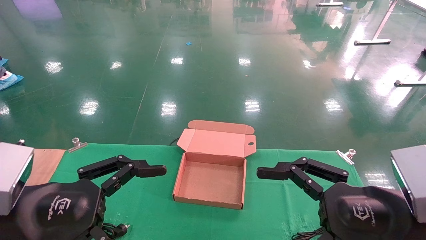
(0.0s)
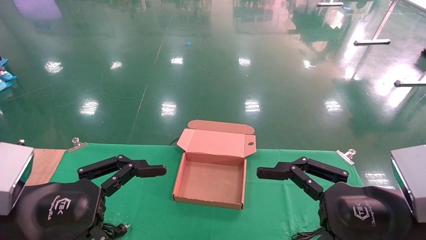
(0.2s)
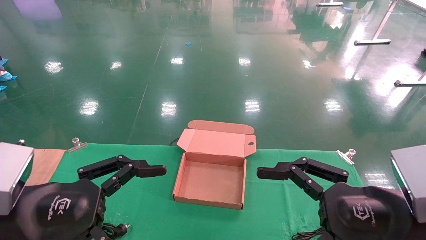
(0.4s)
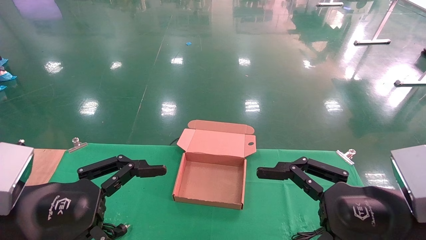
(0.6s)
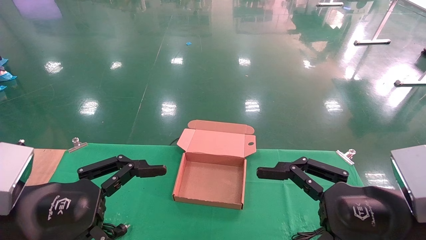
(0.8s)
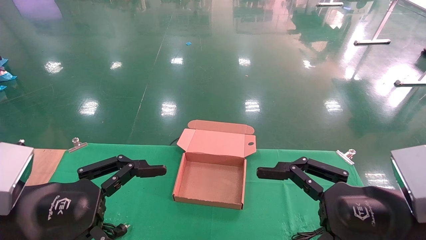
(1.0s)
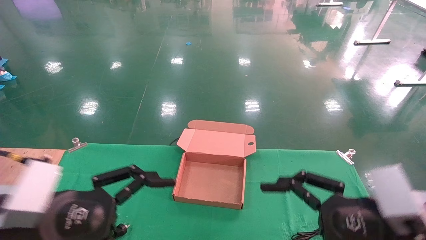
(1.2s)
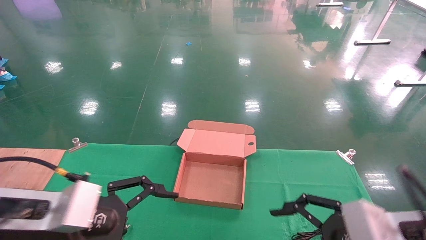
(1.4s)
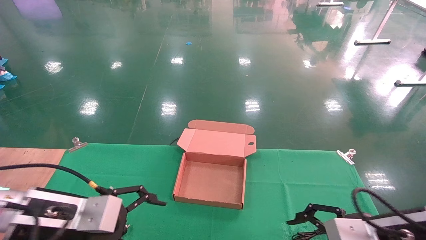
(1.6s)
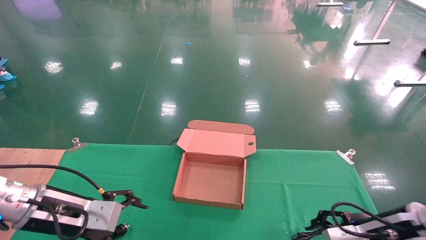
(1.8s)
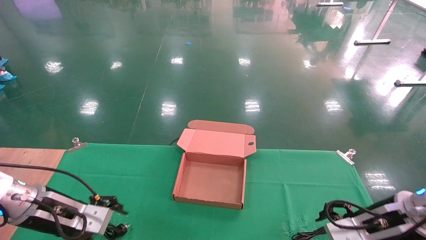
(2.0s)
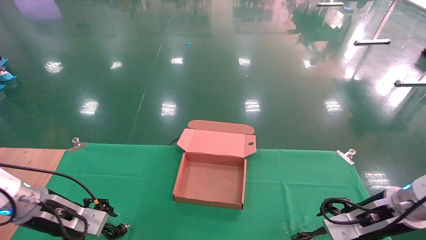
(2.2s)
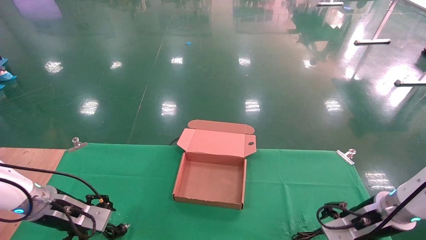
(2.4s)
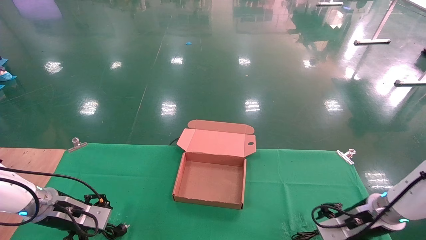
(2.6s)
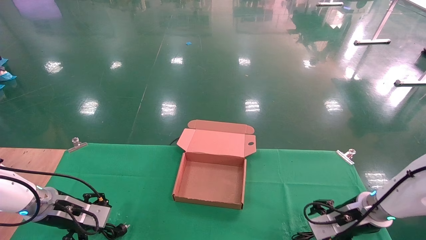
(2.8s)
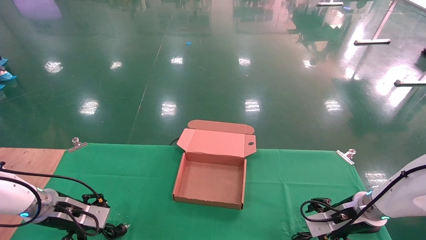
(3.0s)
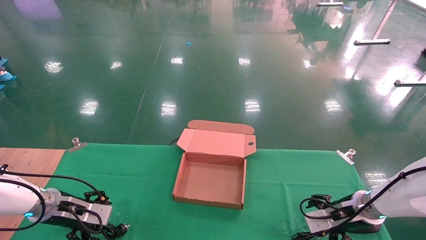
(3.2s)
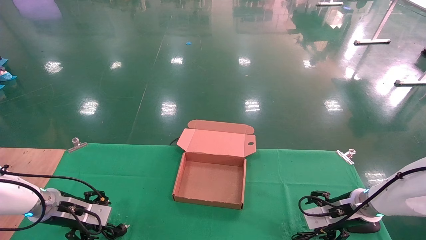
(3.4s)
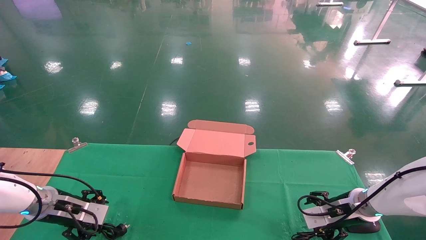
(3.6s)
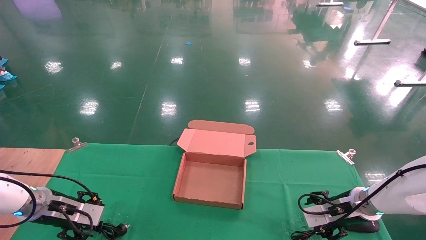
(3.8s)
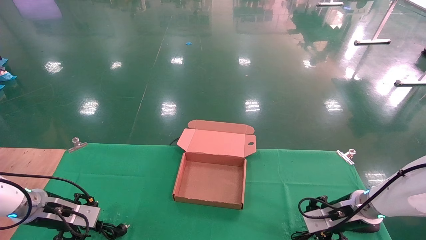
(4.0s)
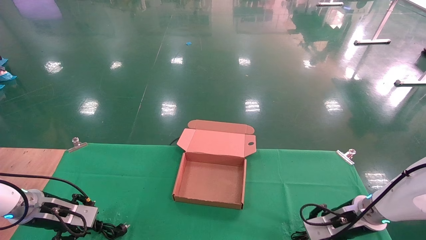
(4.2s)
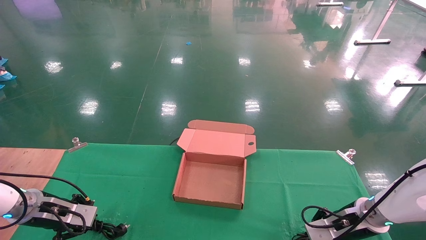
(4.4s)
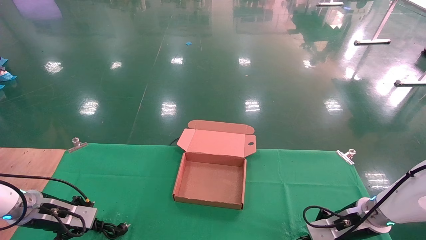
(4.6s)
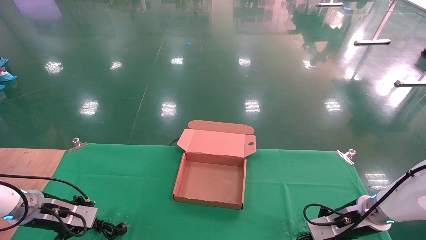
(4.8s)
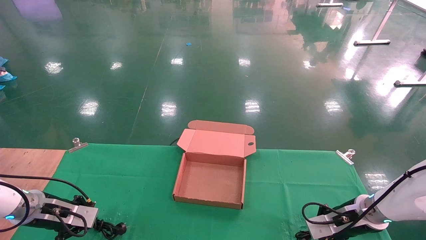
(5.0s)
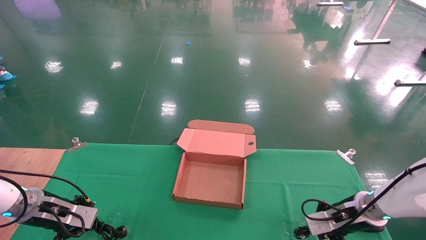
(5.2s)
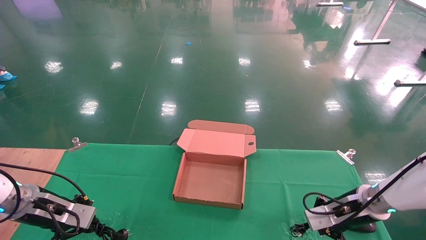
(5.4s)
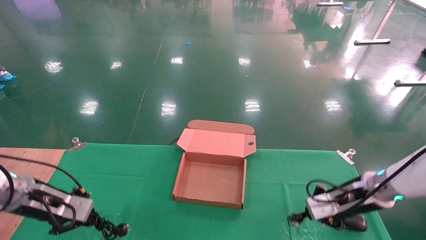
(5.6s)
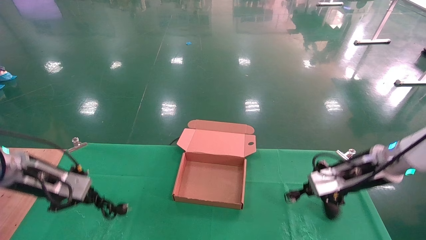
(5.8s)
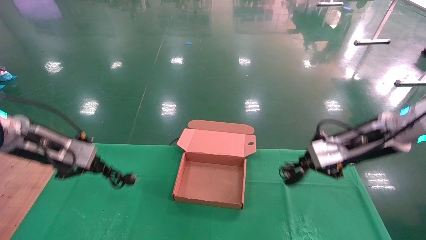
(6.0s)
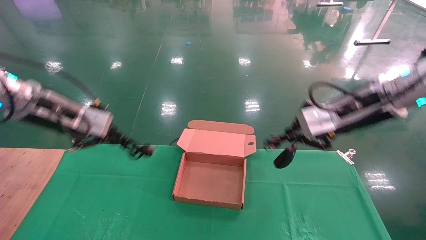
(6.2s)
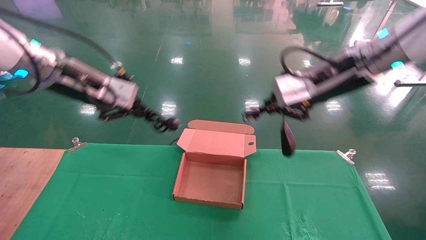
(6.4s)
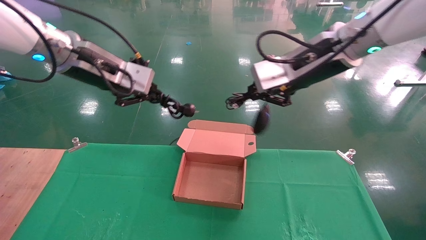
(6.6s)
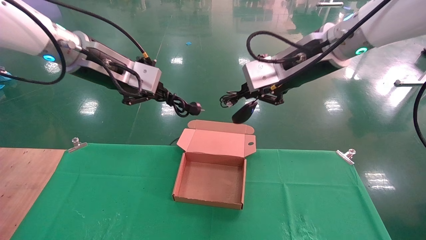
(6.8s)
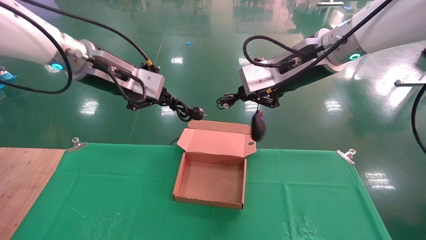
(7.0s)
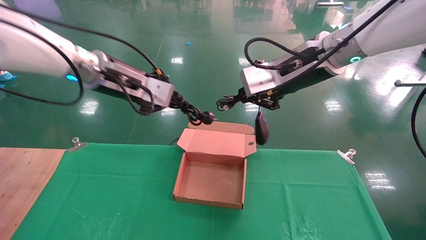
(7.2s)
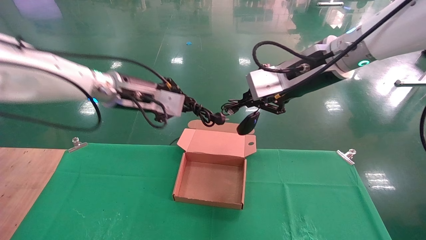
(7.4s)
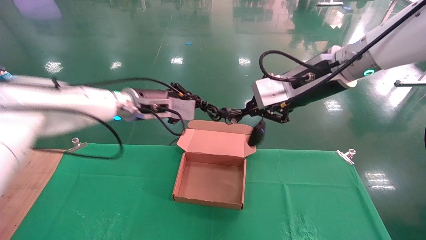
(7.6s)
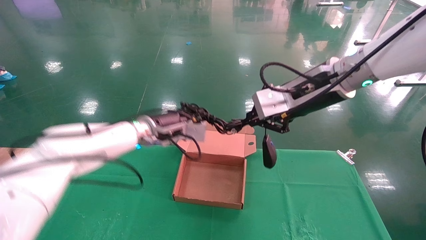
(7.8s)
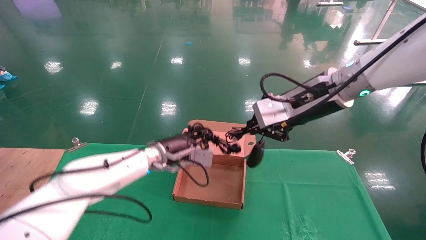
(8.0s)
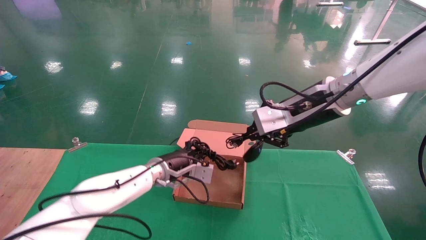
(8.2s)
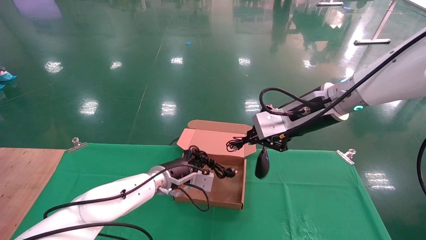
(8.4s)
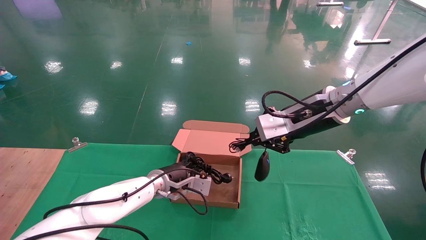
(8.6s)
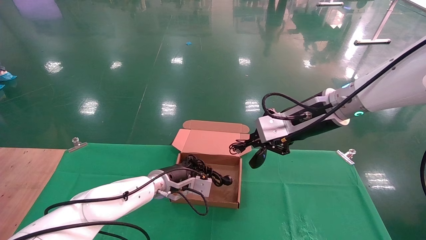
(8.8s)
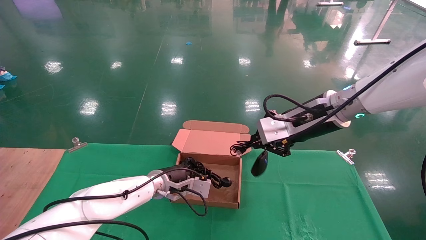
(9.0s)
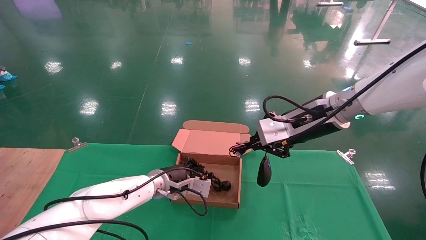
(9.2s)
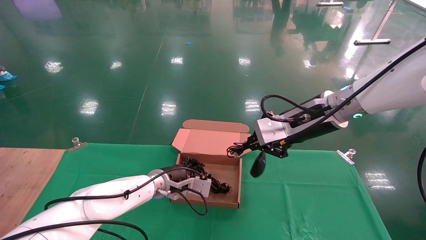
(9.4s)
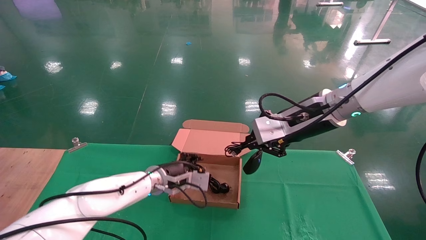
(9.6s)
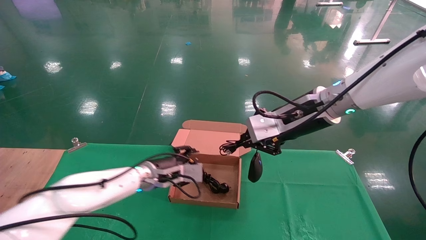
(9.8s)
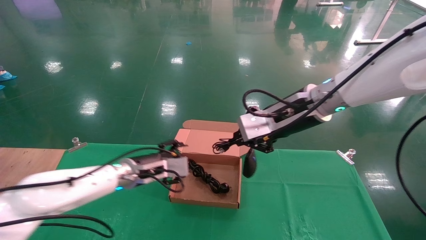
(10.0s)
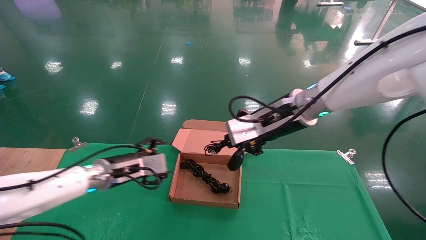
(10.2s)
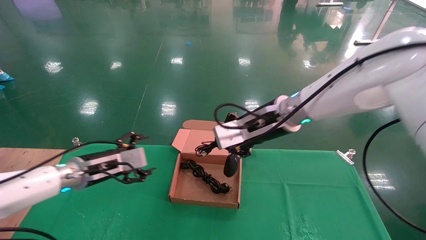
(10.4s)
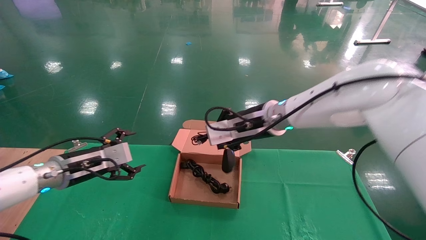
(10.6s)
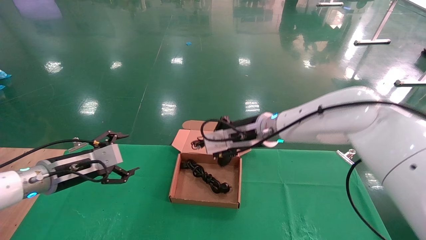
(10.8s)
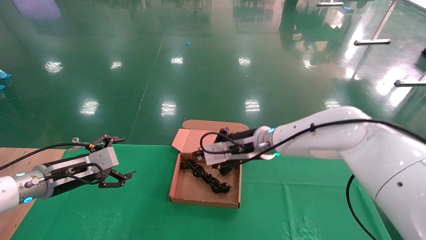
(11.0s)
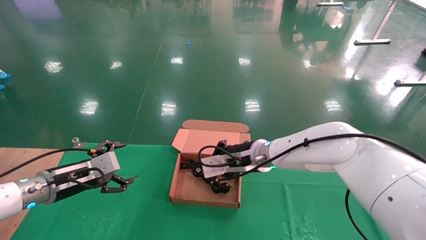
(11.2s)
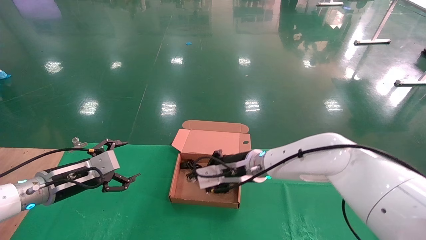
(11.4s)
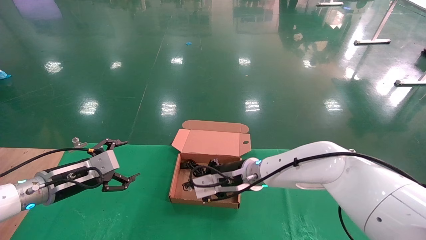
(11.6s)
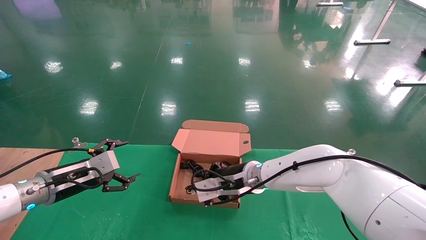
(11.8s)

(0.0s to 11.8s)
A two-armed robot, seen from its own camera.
Step, 1.6s - 6.2s: Grab and lift both the mouse and power cord from the accessory packaging area at the same time.
0.0s - 1.4s: The left gripper ends up about 5 cm from where it was. Meanwhile the right gripper ends up about 5 cm from where it was.
1.4s - 3.0s: The left gripper goes some 25 cm forward, to the left and downward, while the right gripper heads forward and downward, covering approximately 25 cm.
3.0s - 4.4s: The right gripper closes up. The left gripper closes up.
4.4s - 6.0s: Both grippers travel together upward, some 20 cm. The right gripper closes up. Meanwhile the left gripper closes up.
6.0s - 7.4s: The left gripper travels to the right by approximately 15 cm, while the right gripper is displaced upward and to the left by about 15 cm.
7.4s - 8.8s: The right gripper travels downward by some 10 cm. Meanwhile the left gripper travels downward by approximately 25 cm.
8.8s - 10.4s: The left gripper heads to the left and backward, covering roughly 15 cm, and opens; the right gripper shifts approximately 10 cm to the left.
10.4s - 11.8s: The left gripper moves to the left, roughly 5 cm; the right gripper travels downward by roughly 15 cm.

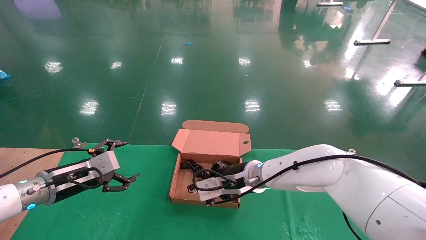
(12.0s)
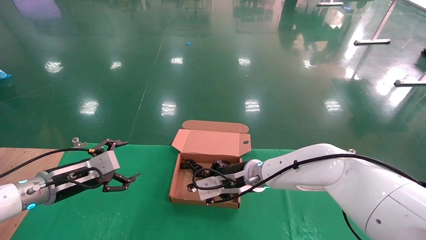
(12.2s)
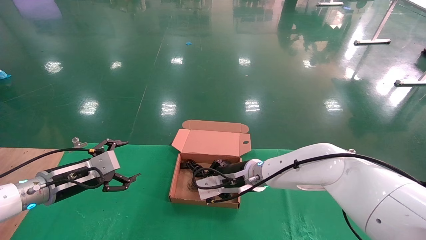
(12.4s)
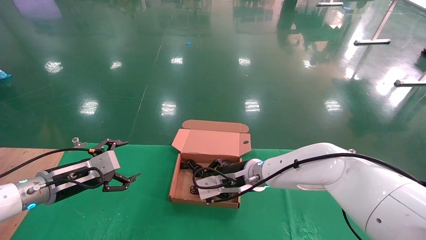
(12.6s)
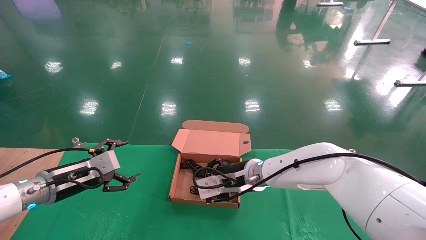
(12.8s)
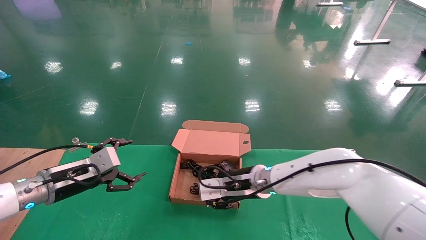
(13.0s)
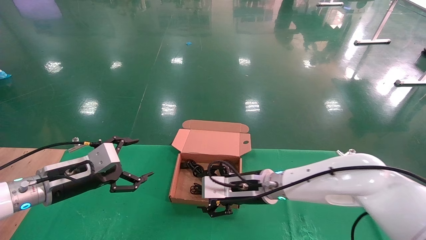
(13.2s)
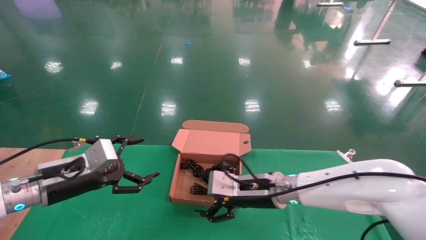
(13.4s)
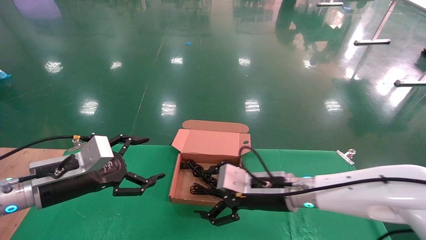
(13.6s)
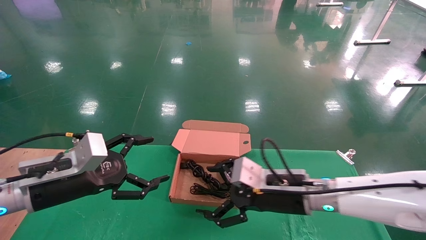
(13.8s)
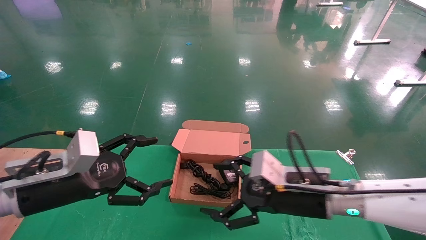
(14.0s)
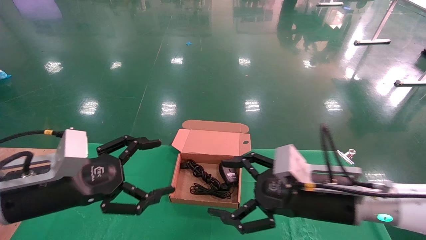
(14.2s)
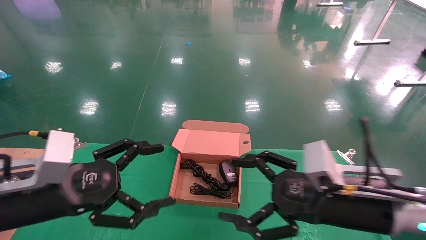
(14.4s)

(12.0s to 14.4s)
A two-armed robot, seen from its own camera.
12.0s - 13.2s: The right gripper opens up.
13.2s - 14.4s: The right gripper travels backward, to the right and upward by about 20 cm, and opens up; the left gripper shifts some 15 cm backward and upward.

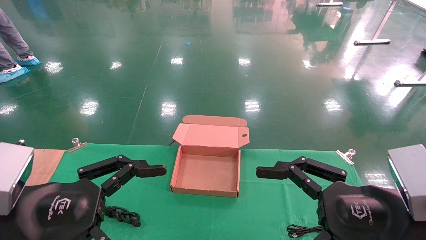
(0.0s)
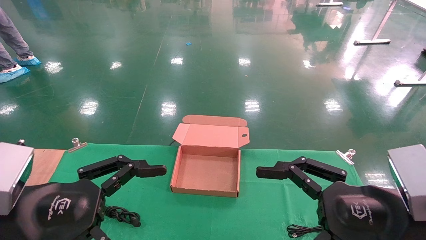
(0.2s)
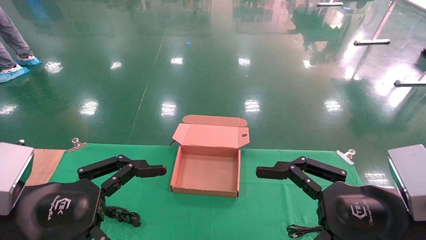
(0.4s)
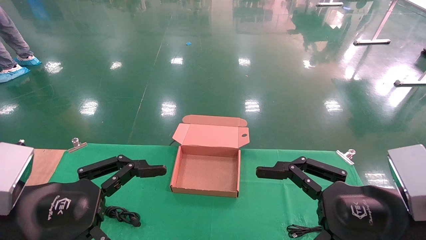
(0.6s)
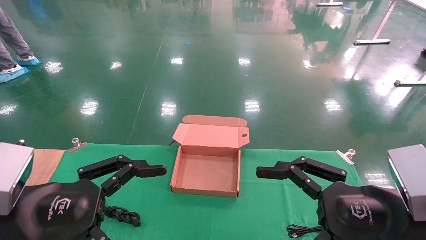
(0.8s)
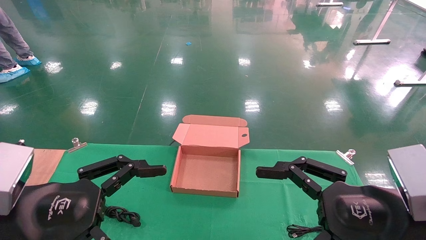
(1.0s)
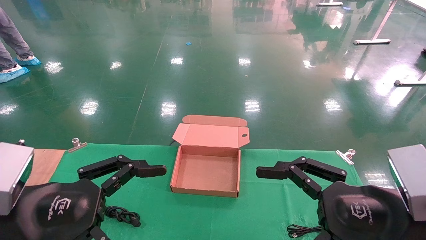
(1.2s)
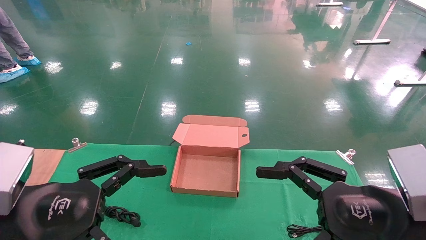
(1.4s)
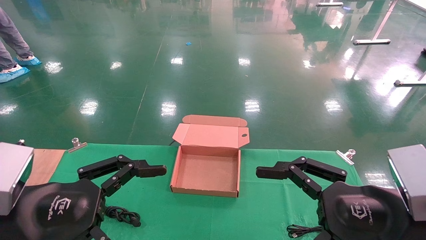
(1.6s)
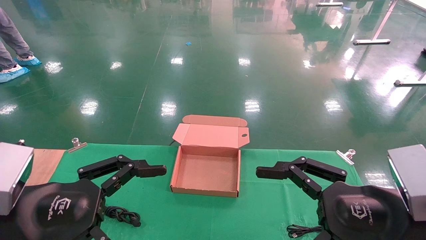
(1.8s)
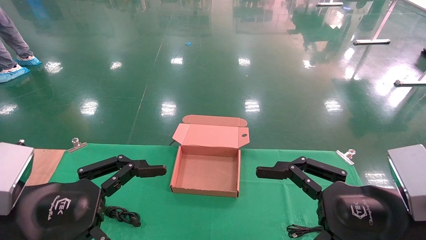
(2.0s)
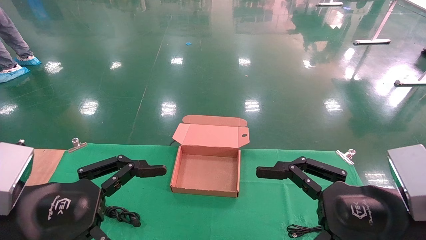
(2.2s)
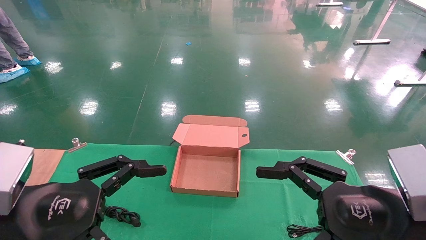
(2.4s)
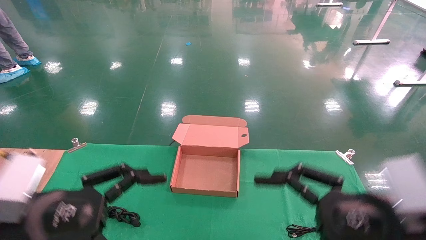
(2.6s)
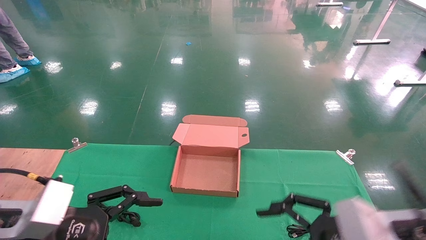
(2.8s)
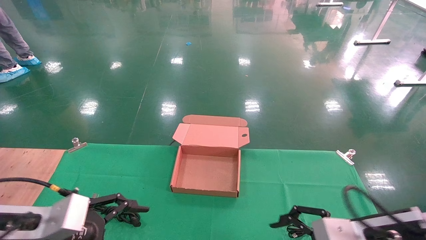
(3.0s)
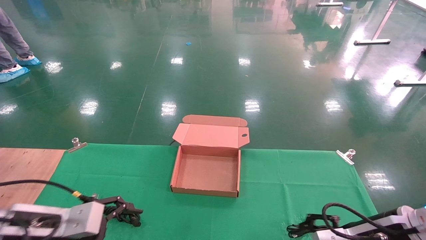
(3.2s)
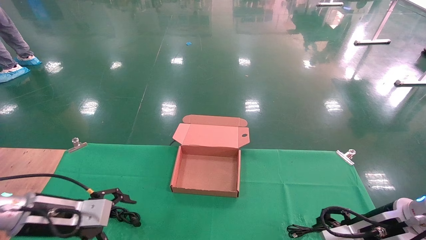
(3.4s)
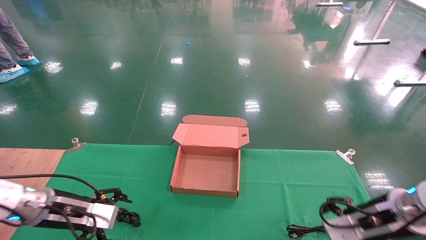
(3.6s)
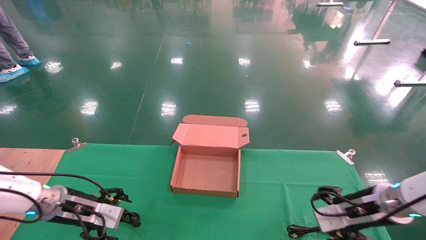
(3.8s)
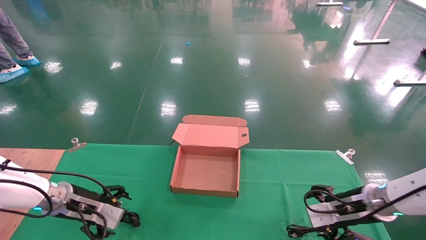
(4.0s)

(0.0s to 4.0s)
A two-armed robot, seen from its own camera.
0.0s - 1.4s: The two grippers keep their place.
1.4s - 2.6s: The grippers move only a little.
2.6s - 4.0s: Both grippers travel together forward and downward, approximately 20 cm.
